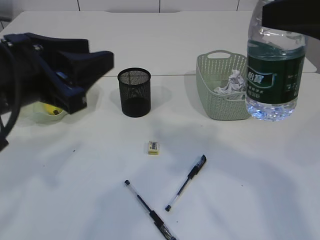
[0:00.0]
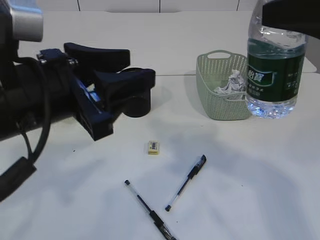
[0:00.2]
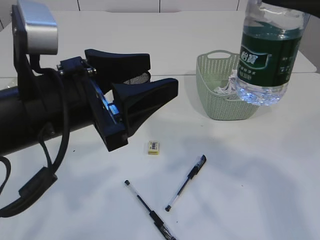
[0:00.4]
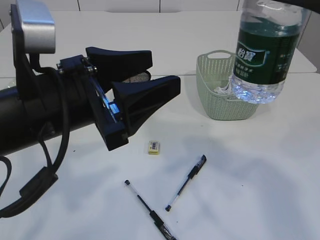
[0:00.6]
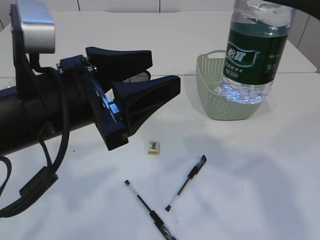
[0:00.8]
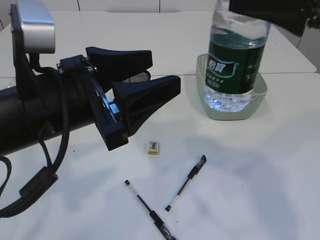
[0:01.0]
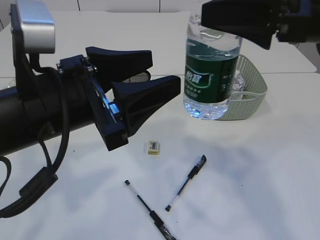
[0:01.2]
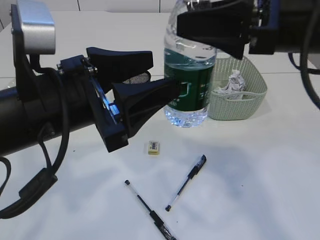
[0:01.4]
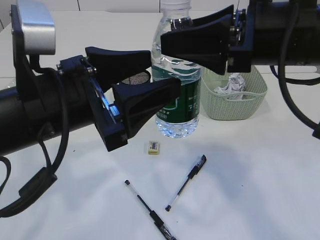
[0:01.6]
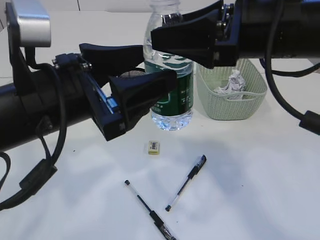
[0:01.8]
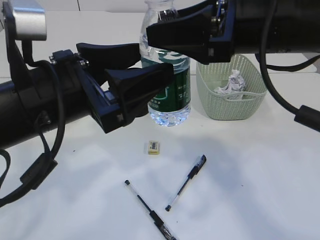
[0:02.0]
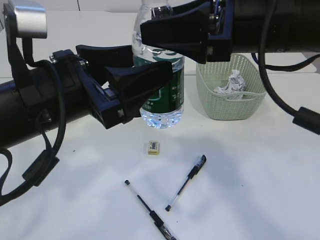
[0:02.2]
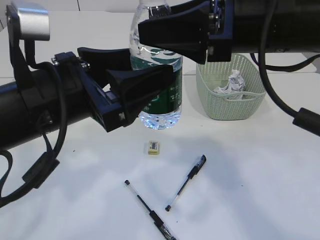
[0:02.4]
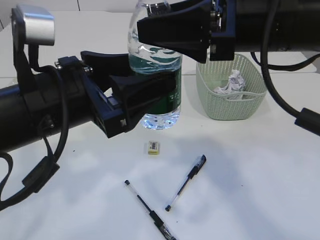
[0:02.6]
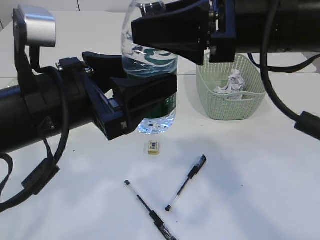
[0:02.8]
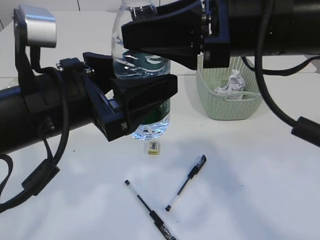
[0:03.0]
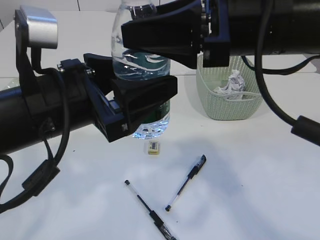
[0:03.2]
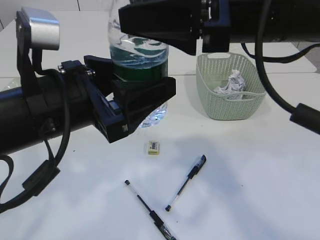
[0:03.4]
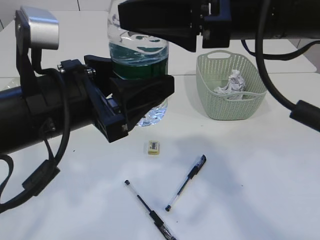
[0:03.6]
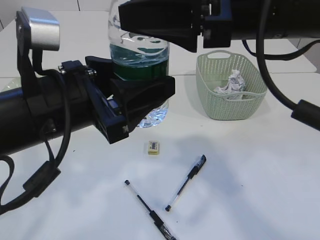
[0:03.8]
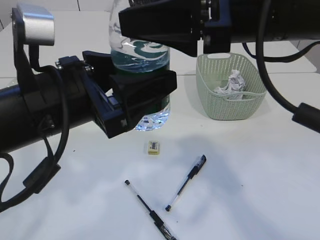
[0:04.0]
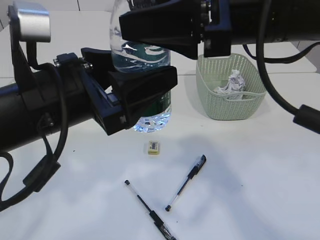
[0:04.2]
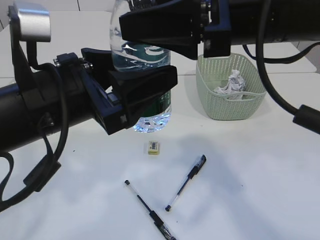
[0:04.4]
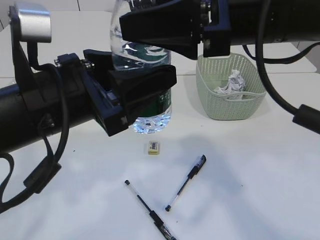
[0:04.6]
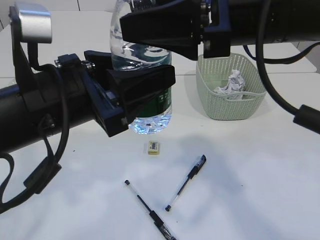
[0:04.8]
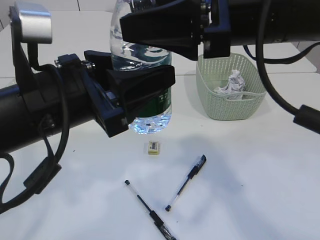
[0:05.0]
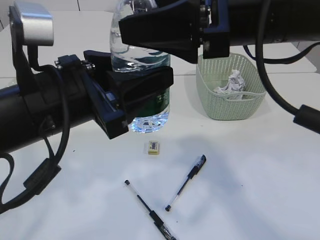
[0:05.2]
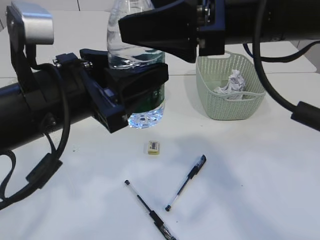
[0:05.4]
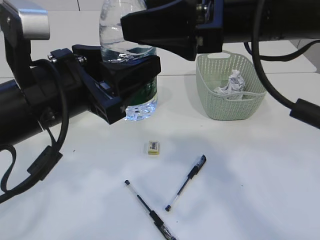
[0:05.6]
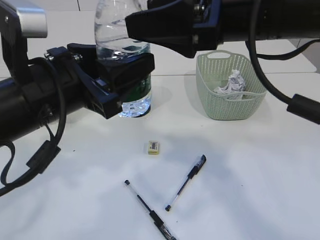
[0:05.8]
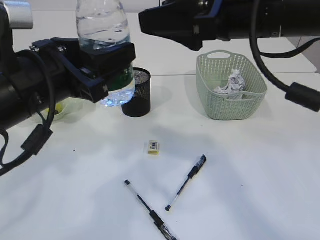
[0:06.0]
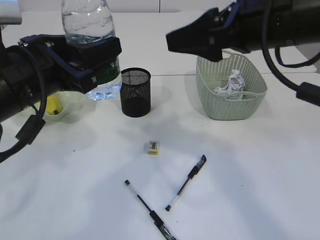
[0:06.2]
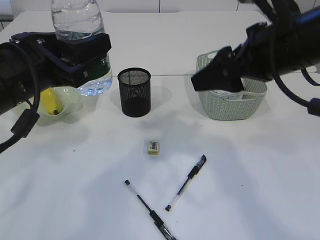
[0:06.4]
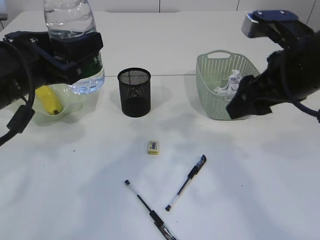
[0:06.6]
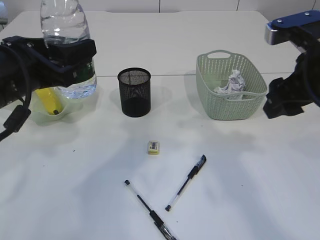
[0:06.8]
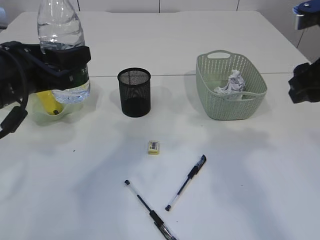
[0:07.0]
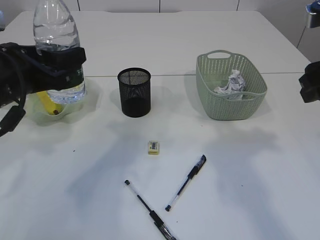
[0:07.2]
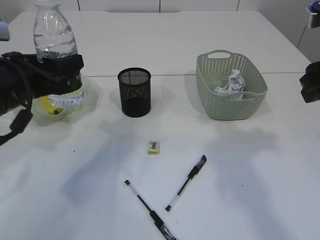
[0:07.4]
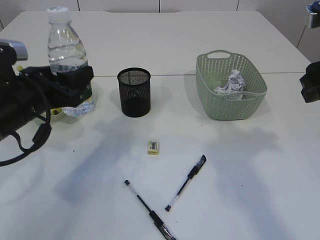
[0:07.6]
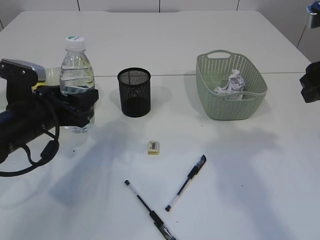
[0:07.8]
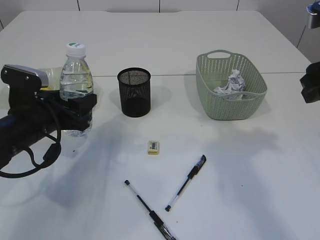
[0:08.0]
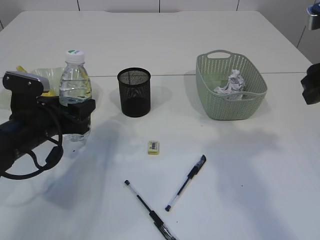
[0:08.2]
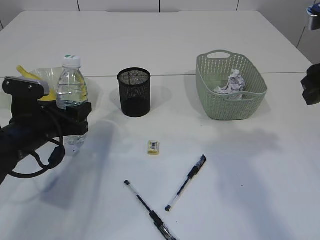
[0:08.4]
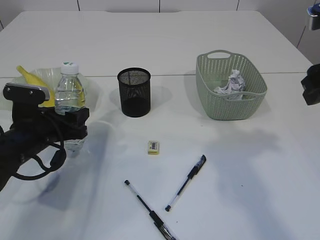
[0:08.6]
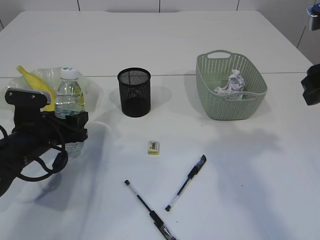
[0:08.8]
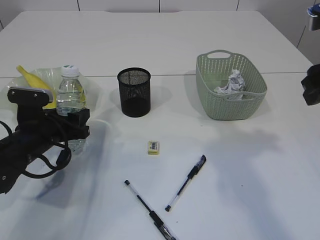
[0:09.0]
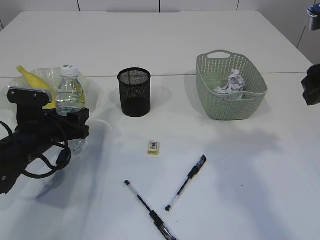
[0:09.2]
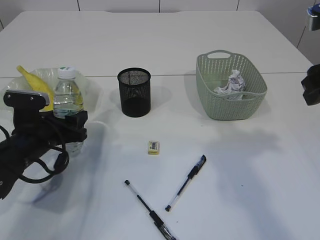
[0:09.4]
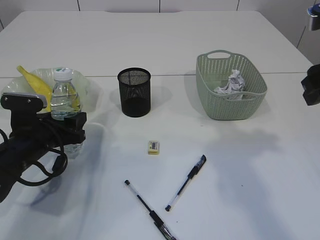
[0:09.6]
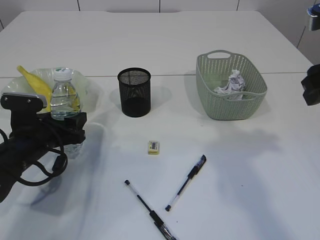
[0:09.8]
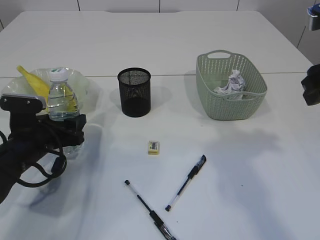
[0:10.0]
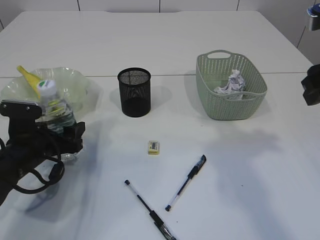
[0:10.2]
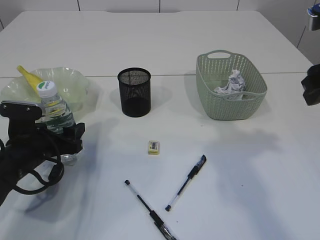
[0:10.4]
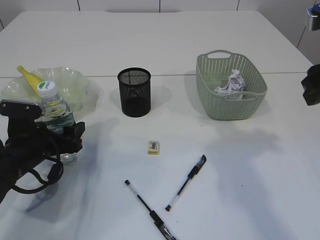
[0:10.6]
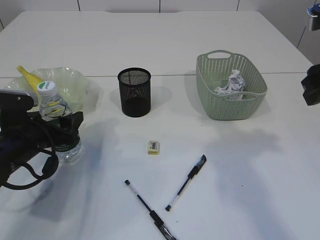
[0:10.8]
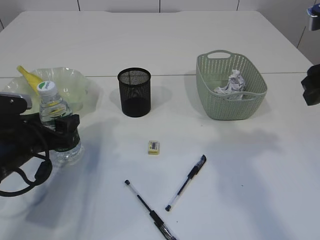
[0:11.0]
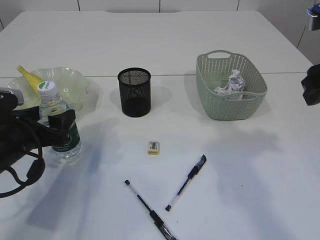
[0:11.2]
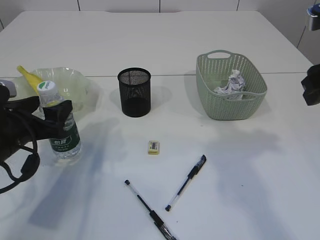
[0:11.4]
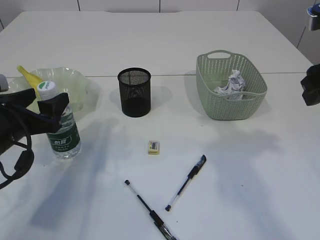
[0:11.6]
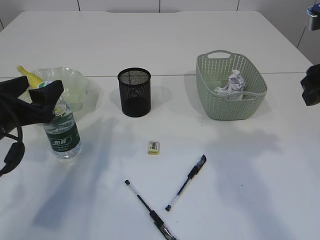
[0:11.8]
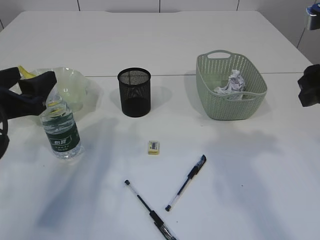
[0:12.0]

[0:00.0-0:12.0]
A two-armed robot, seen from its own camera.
Step, 0:00.0 to 0:06.0: transfer the bottle to the left arm.
0:00.0 to 0:01.6: The left gripper moves to the right, some 5 cm; the right gripper heads to the left, covering some 10 cm.
0:03.0 to 0:04.4: The grippers make only small movements.
0:06.0 to 0:07.6: The right gripper shifts about 15 cm to the right; the left gripper travels downward, to the left and forward by some 10 cm.
0:07.6 to 0:09.0: The left gripper shifts approximately 10 cm downward.
0:09.0 to 0:10.4: There are only small adjustments of the grippers.
0:10.4 to 0:12.0: The left gripper is displaced upward by some 10 cm.

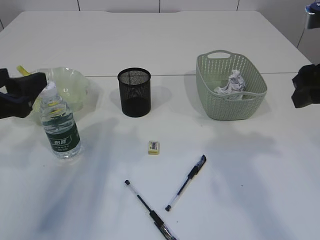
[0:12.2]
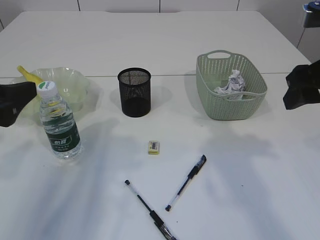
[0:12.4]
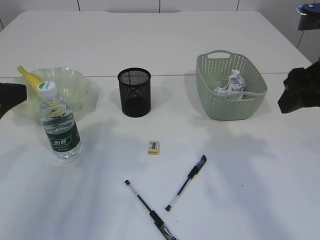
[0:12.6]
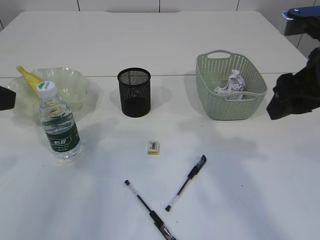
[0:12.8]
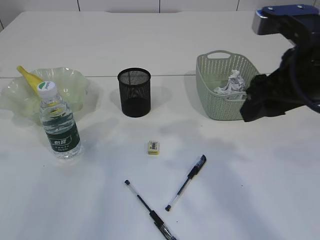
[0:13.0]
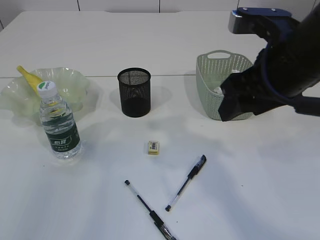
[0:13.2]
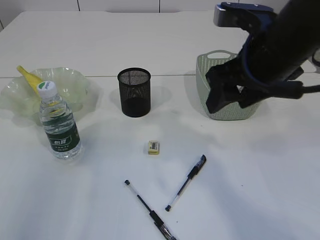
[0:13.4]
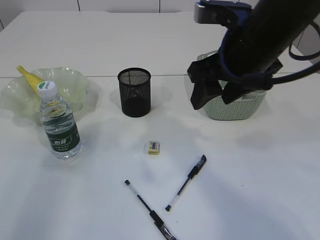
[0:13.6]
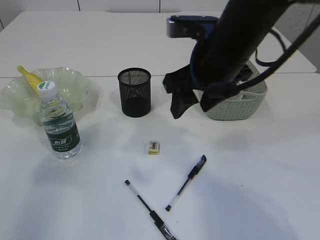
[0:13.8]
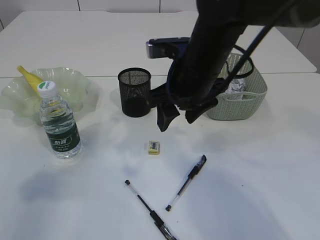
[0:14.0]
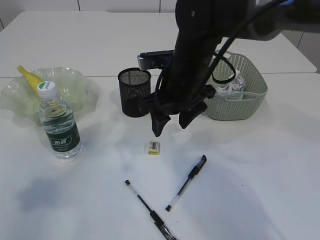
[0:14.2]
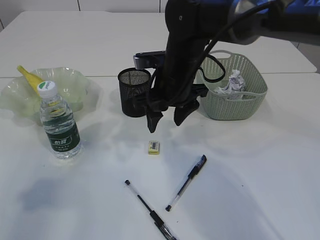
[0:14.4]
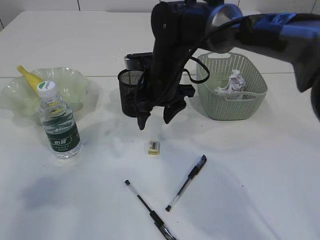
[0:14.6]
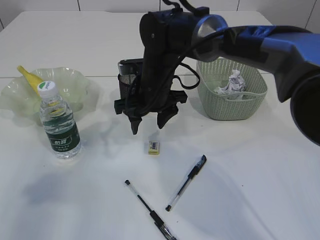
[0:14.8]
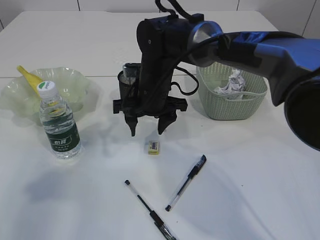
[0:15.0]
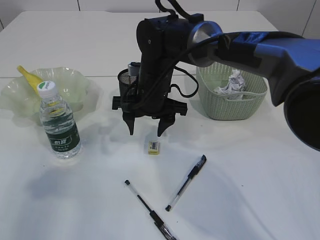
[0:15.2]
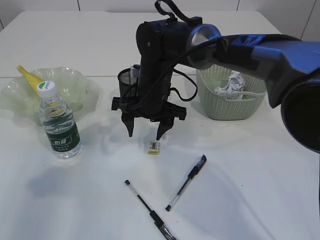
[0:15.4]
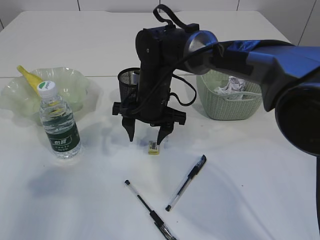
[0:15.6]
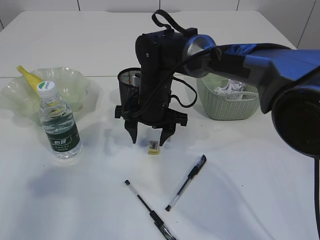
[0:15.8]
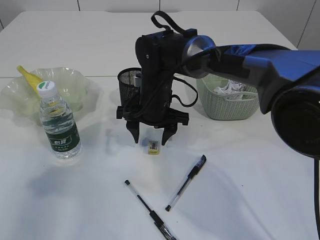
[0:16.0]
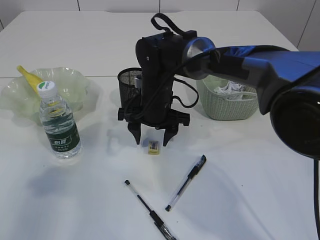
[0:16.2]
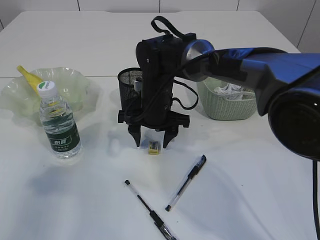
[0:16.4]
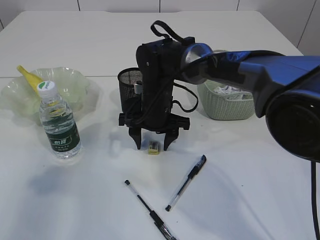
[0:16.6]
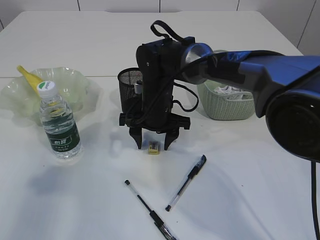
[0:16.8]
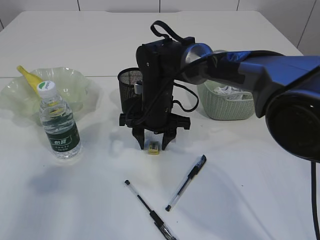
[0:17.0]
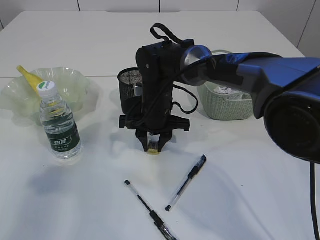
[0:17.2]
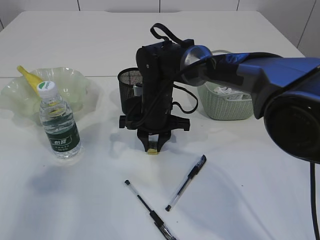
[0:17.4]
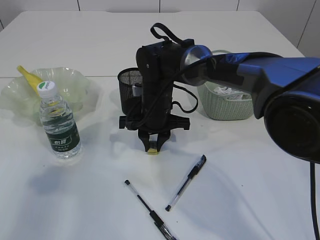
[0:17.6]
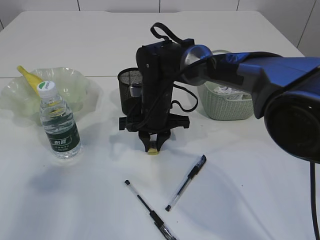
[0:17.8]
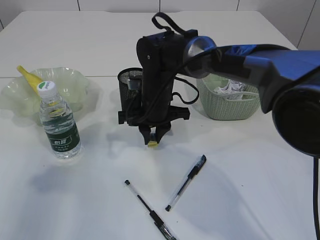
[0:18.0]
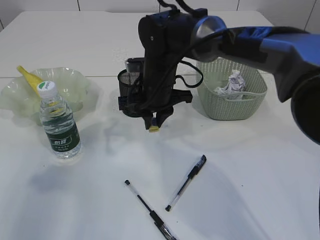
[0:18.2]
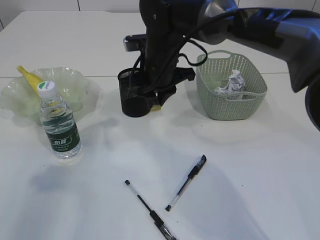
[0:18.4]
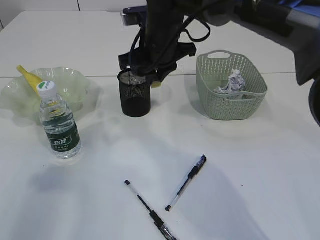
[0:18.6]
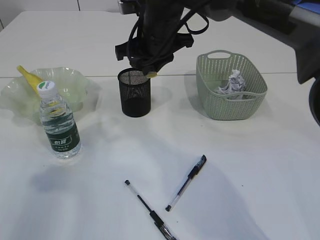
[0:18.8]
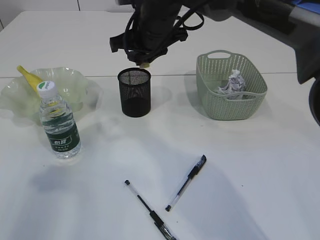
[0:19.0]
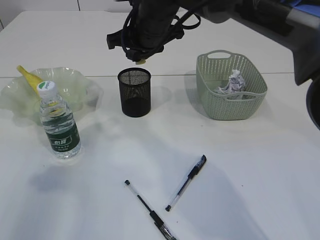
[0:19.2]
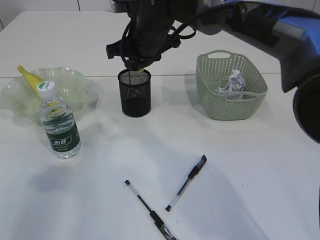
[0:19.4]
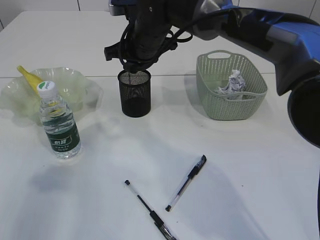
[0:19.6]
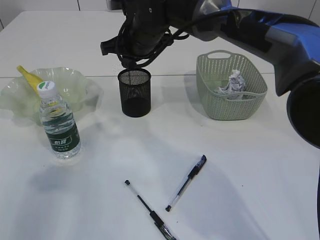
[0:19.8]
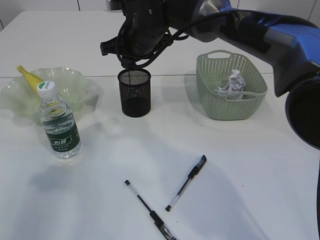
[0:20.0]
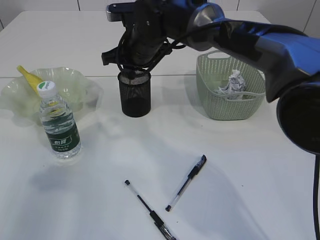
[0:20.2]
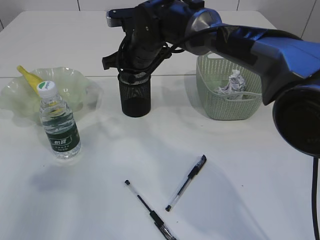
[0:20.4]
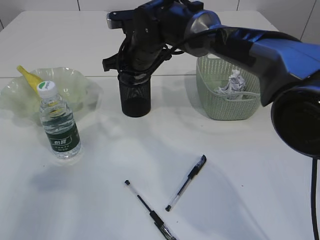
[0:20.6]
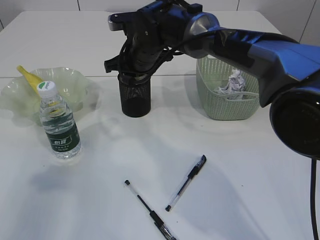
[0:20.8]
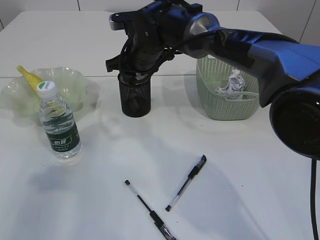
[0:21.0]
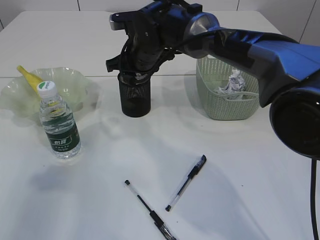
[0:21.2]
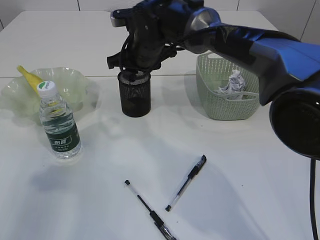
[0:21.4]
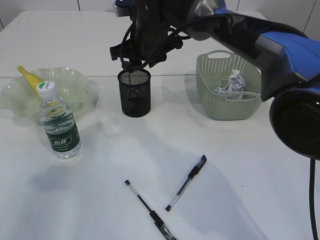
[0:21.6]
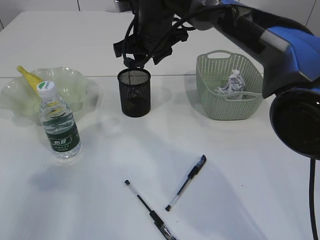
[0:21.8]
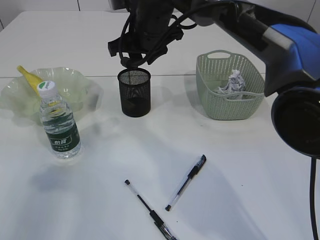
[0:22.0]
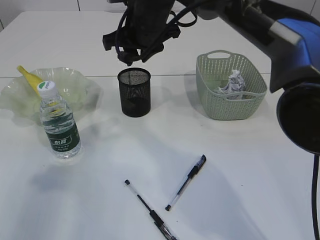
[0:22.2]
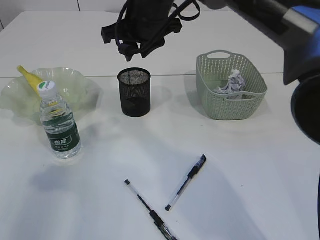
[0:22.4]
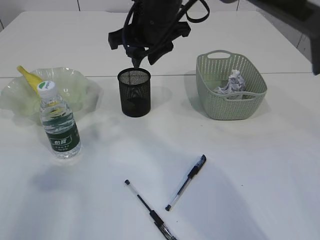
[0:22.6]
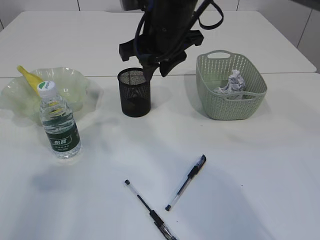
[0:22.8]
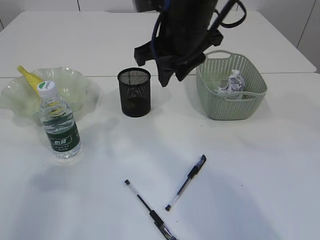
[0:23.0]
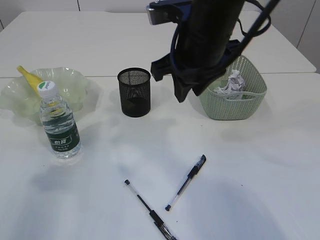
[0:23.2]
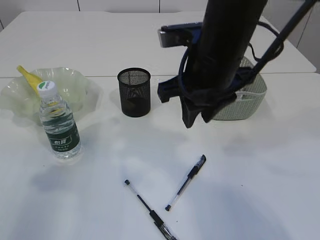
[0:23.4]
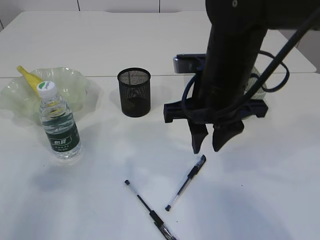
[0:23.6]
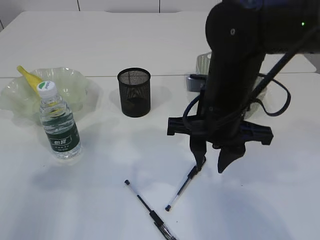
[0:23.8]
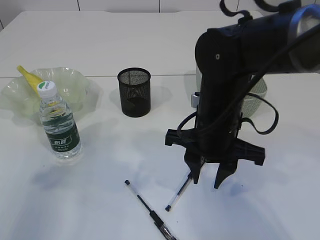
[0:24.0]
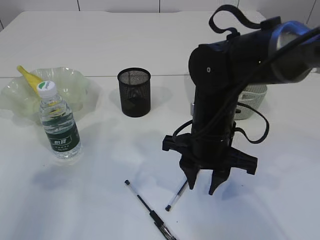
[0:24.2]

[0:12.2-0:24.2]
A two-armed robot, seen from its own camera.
Step, 0:12.2 to 0:18.2: Pick up the eraser.
Step, 0:18.4 to 0:22.2: Place the eraser into the pen holder.
0:12.2 to 0:13.8: The right gripper is displaced to the left by roughly 15 cm; the left gripper is displaced upward, to the left and backward by approximately 15 cm.
0:13.8 to 0:15.2: The right gripper moves downward, to the left and forward, approximately 15 cm.
0:15.2 to 0:16.6: The grippers make only small movements.
0:16.6 to 0:18.2: The right gripper closes its fingers.
0:18.2 to 0:19.8: The right gripper goes approximately 5 cm upward.
0:19.8 to 0:21.2: There are only small adjustments of the grippers.
0:21.2 to 0:22.6: The right gripper travels upward by about 10 cm.
0:22.6 to 0:24.2: The right gripper moves downward, backward and to the right, roughly 20 cm.
